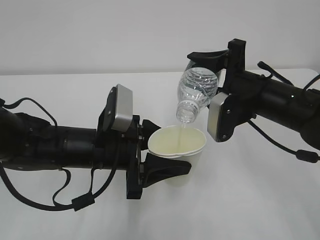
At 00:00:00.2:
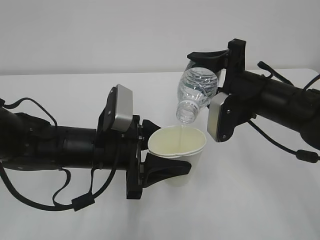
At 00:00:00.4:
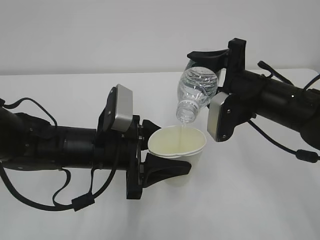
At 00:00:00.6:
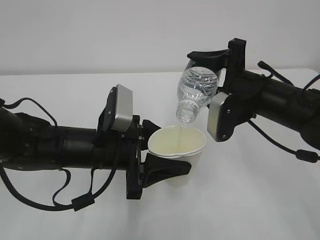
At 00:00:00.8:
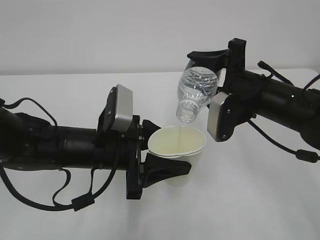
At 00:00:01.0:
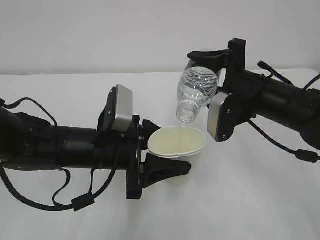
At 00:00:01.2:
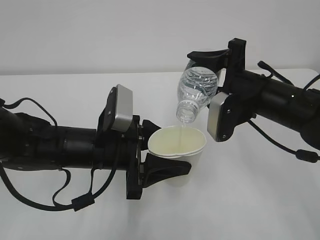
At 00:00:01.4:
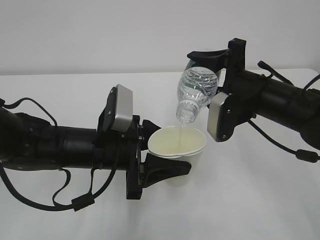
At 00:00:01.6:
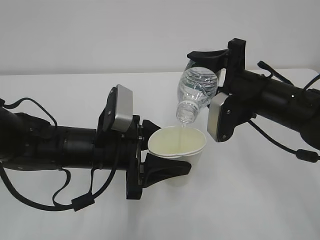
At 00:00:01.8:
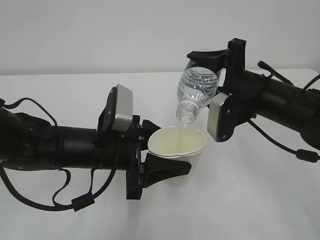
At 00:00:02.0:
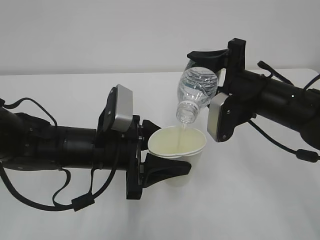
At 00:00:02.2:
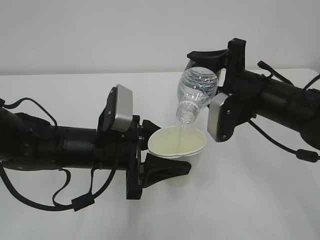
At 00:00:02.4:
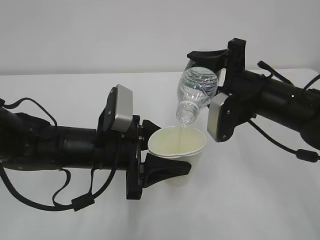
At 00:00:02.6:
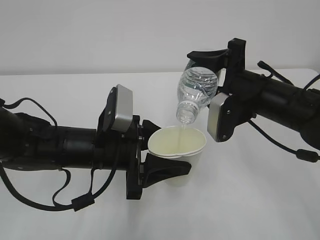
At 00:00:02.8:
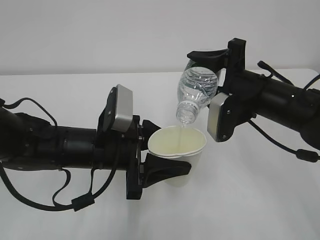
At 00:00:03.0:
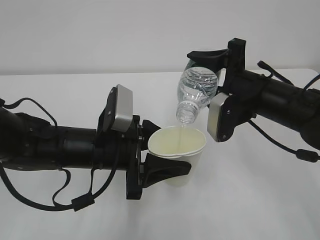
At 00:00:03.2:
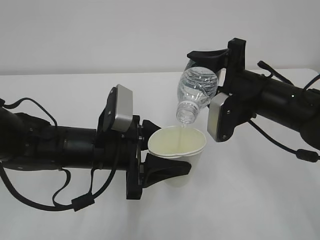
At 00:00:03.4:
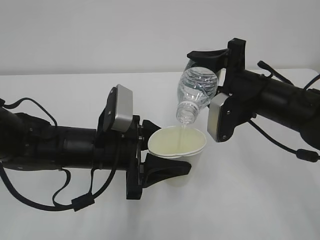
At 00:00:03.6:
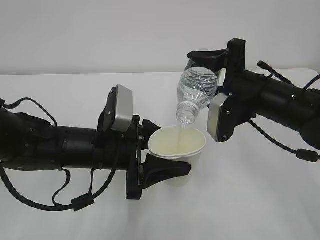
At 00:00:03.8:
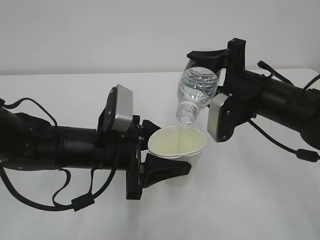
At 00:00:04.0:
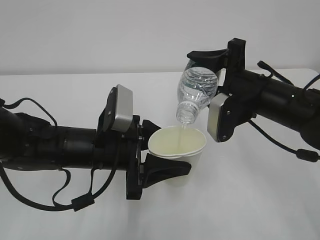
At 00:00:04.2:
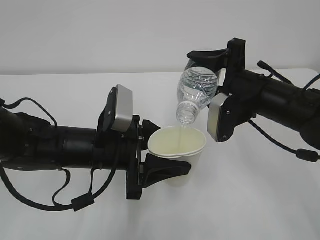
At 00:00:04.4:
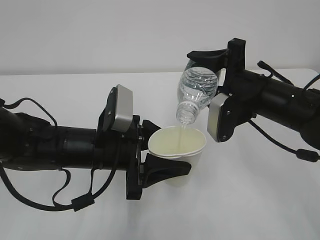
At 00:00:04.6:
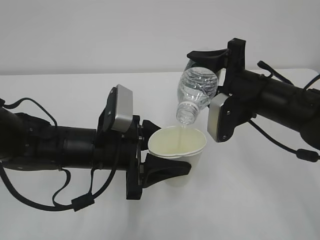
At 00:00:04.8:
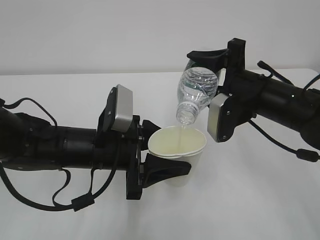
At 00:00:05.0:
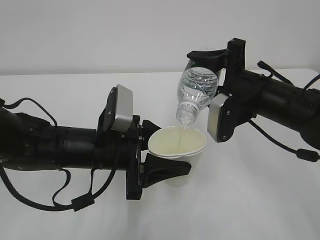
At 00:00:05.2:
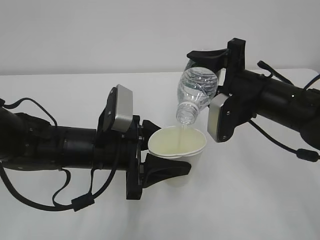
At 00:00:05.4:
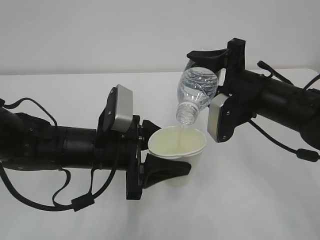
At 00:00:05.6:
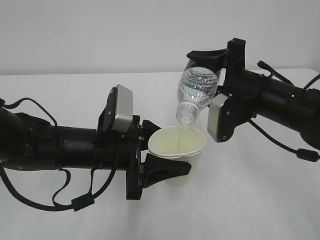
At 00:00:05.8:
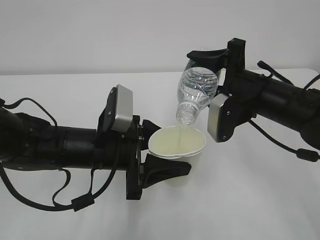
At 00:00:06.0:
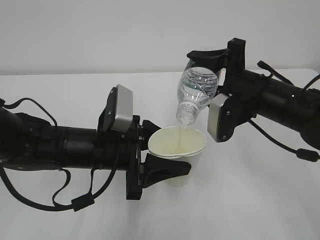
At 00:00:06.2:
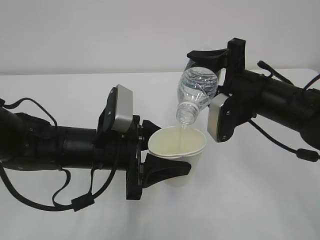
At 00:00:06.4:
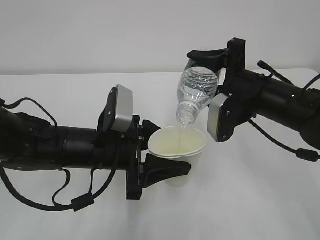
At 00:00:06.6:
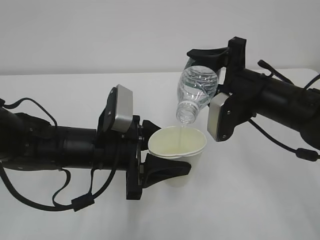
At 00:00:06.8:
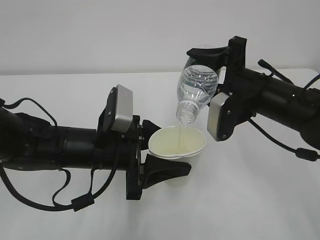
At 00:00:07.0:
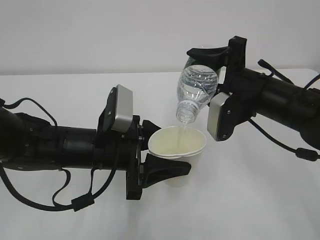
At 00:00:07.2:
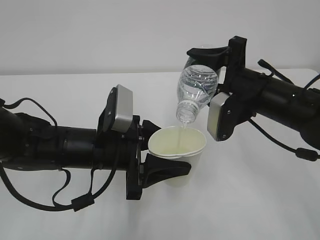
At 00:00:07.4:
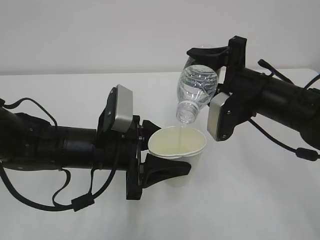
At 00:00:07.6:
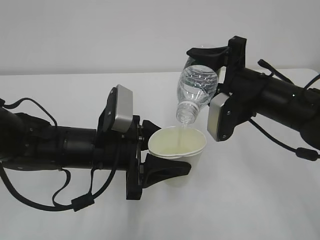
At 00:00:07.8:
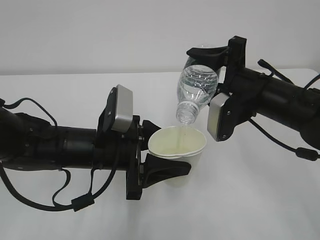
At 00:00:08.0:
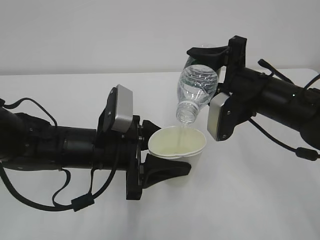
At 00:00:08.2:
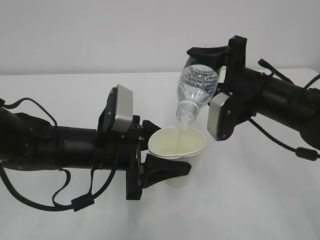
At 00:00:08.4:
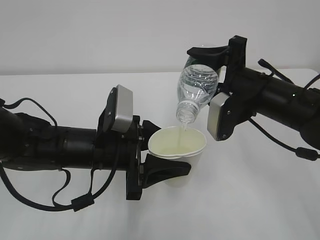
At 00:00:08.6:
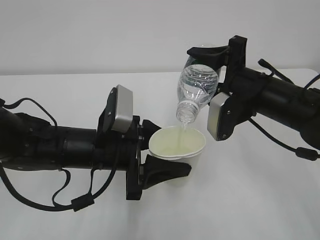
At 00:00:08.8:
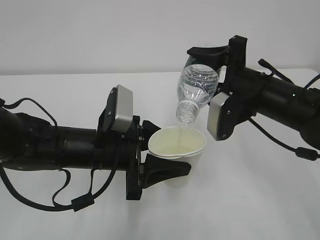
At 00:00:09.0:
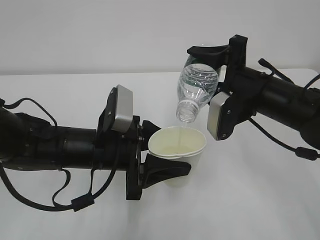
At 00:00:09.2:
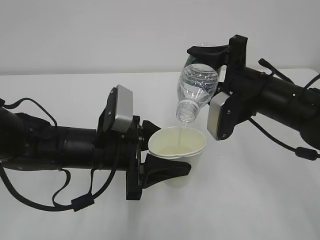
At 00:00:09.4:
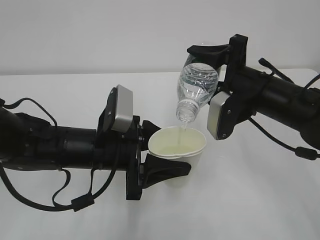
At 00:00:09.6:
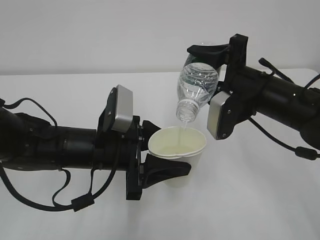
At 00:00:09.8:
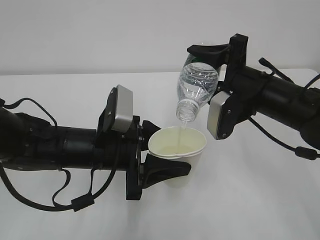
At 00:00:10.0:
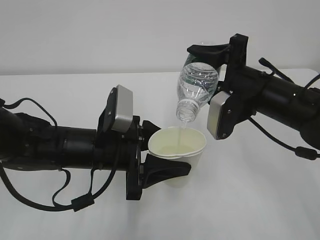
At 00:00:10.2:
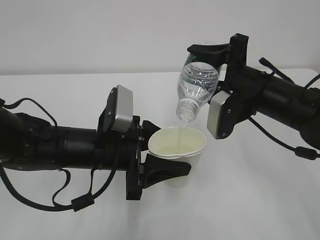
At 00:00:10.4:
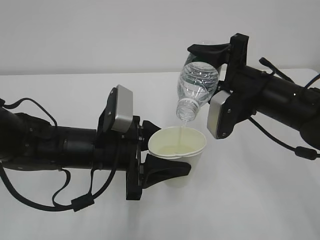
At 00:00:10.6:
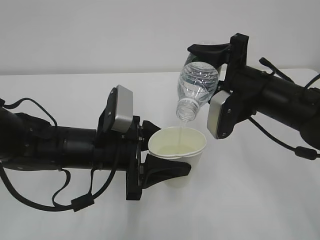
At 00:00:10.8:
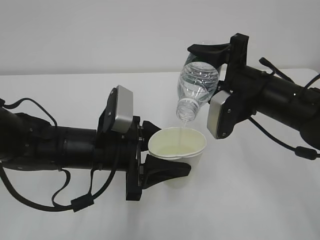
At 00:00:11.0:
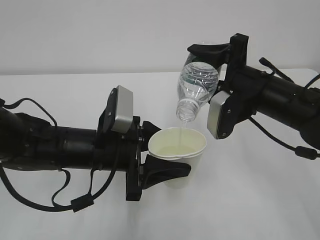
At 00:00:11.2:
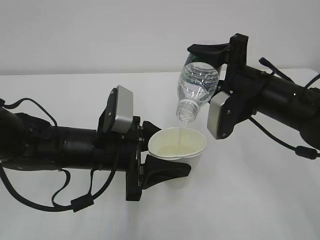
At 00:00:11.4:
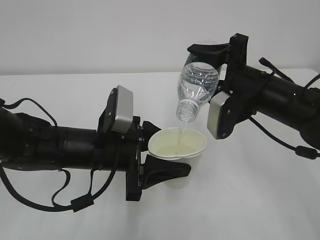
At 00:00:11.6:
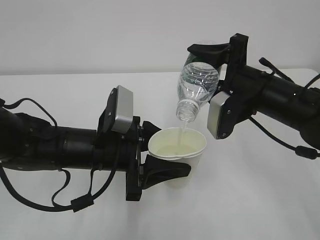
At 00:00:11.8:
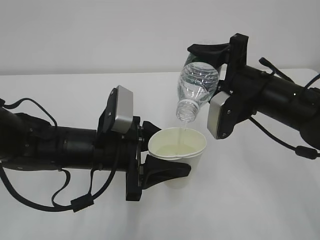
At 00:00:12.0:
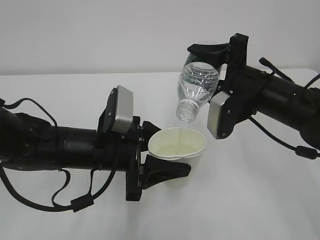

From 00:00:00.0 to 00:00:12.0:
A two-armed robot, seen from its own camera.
From 00:00:00.0 to 00:00:09.0: Both grippers stay put.
From 00:00:09.0 to 00:00:12.0: The two grippers keep their place.

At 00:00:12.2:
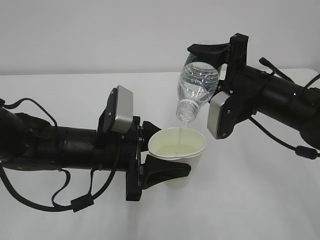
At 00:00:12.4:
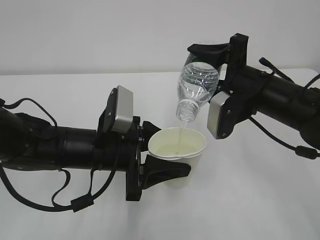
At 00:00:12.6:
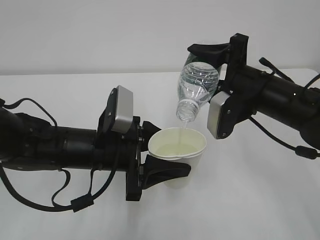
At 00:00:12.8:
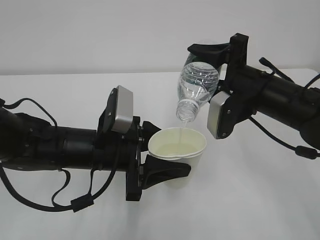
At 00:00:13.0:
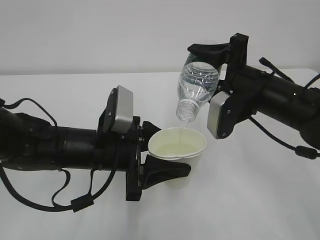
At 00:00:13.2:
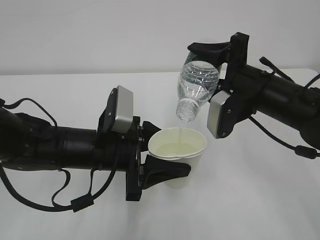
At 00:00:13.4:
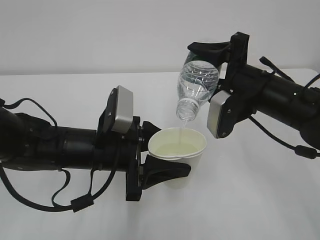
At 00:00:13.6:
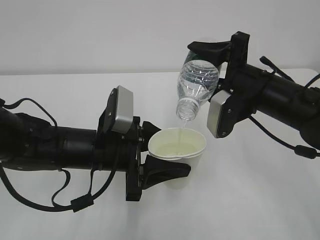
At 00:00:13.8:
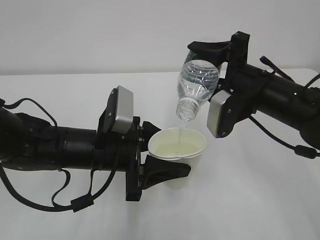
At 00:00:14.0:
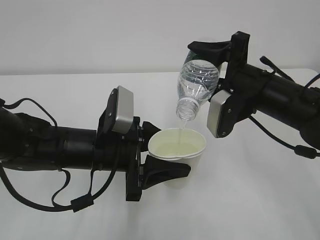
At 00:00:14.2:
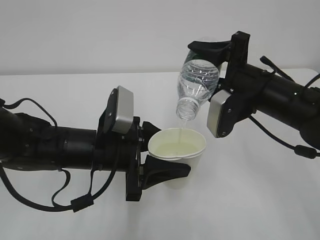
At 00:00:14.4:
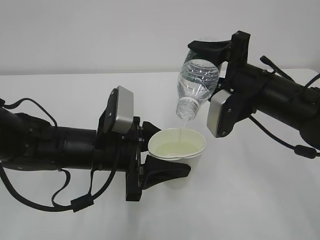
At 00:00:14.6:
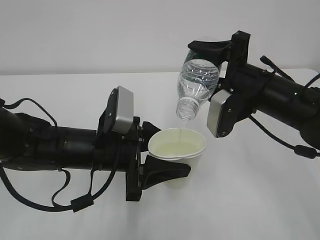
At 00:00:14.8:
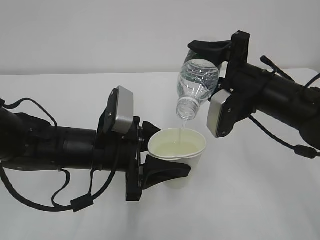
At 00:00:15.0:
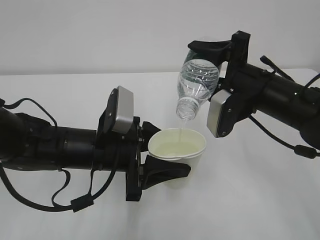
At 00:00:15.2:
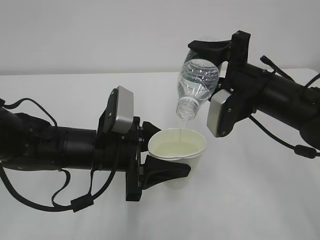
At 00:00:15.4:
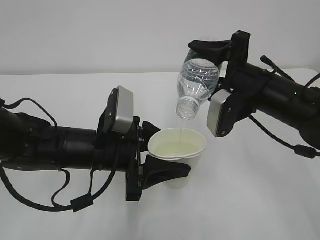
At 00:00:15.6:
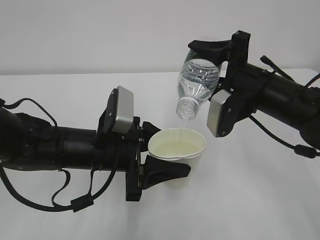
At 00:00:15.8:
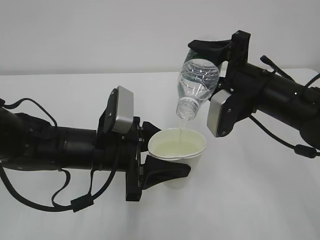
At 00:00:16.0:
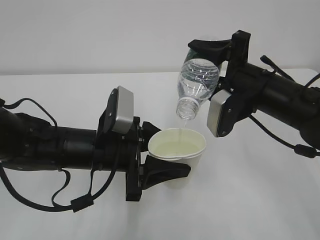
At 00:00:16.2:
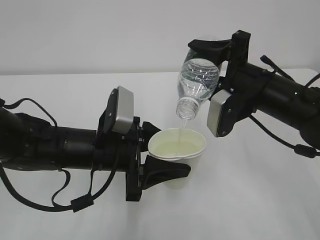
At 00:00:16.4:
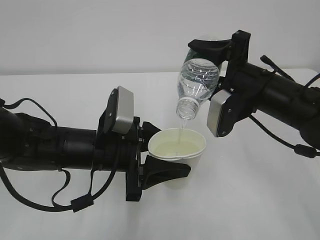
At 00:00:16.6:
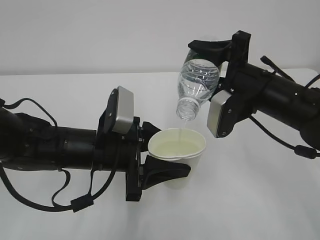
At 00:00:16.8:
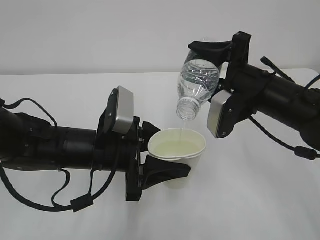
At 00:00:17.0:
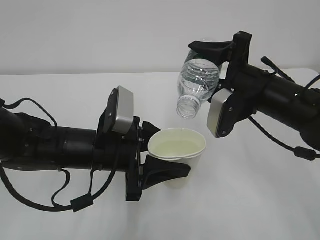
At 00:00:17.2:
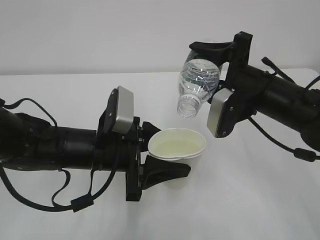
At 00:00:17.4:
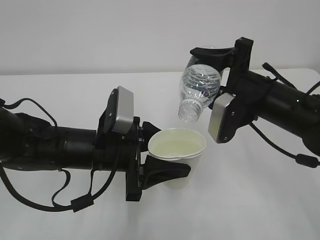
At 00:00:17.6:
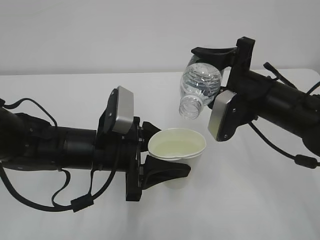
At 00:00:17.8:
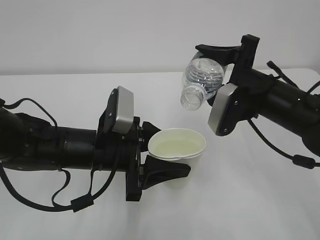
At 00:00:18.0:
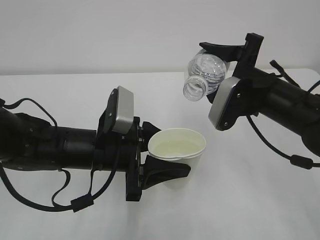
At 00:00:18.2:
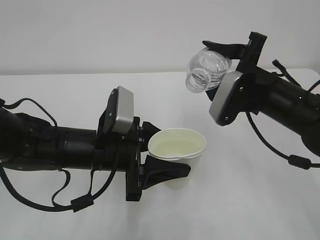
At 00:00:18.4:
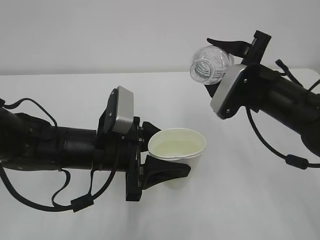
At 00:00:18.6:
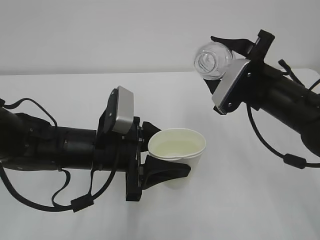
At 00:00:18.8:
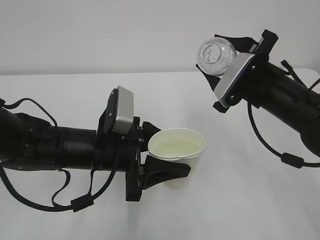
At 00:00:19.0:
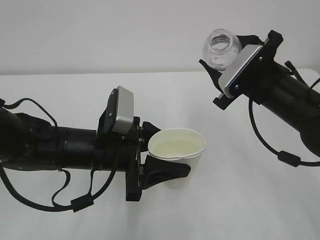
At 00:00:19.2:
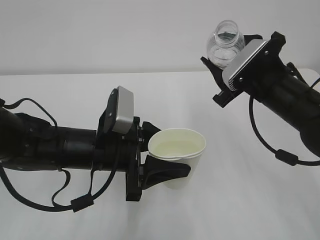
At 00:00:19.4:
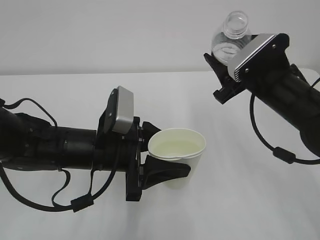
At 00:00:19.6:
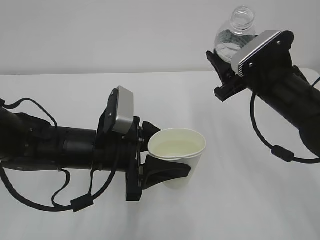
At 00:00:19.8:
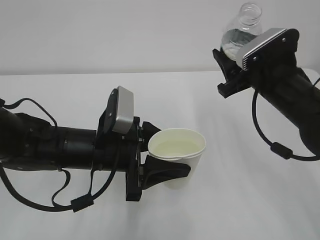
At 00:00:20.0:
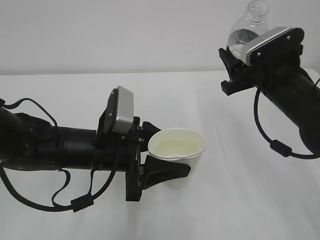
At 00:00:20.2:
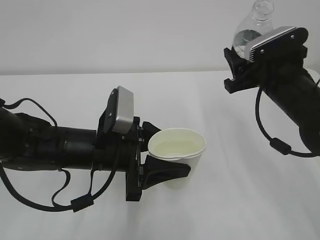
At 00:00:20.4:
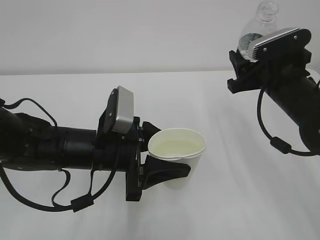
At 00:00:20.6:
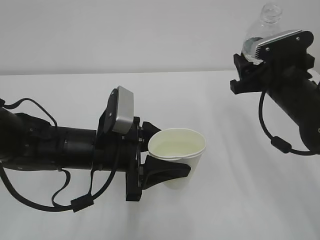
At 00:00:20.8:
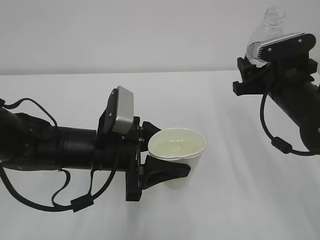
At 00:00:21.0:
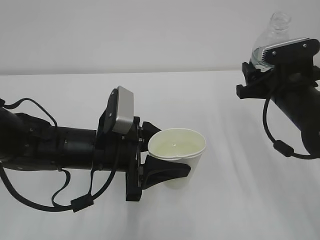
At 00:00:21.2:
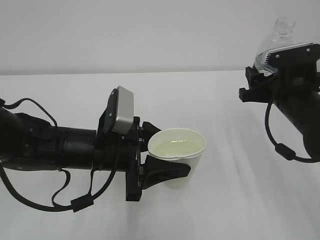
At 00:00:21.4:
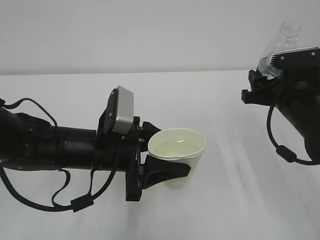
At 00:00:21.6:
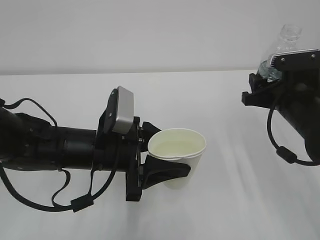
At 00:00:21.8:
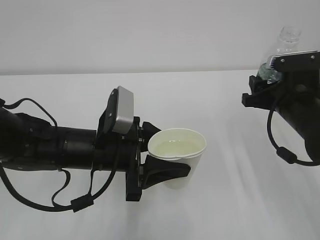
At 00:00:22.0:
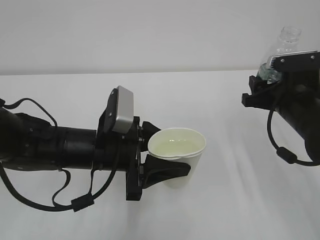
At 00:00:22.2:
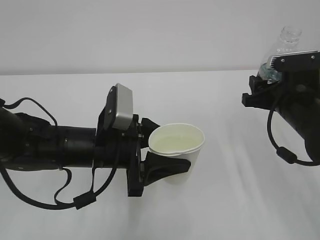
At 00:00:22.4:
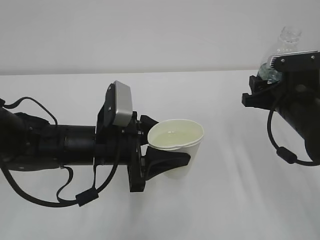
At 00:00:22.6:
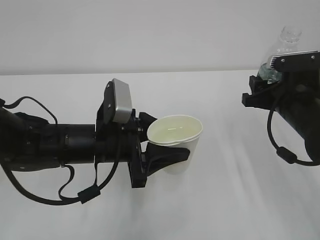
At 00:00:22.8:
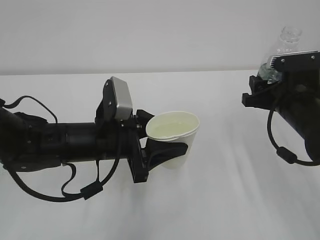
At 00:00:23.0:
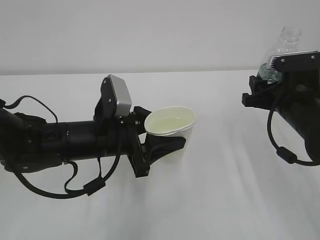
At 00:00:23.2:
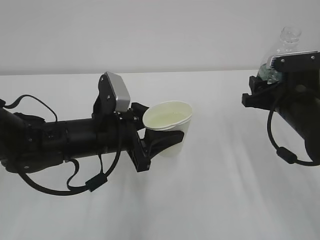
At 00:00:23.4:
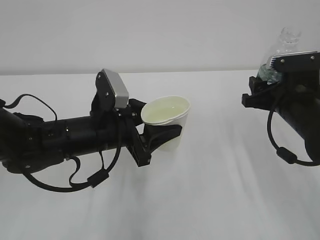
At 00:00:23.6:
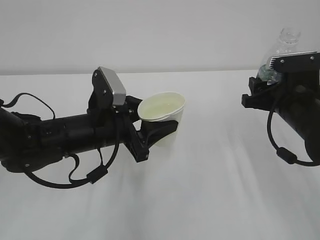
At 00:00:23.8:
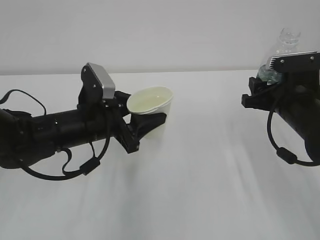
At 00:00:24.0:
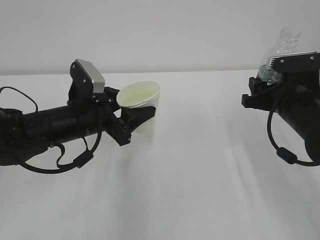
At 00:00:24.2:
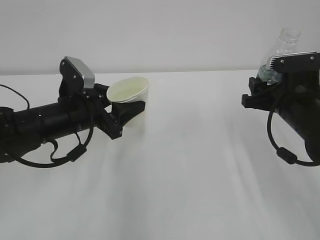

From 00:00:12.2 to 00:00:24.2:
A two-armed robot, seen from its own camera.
From 00:00:12.2 to 00:00:16.6: The two grippers keep their place.
From 00:00:21.2 to 00:00:22.6: The grippers move only a little.
From 00:00:22.6 to 00:00:24.2: The left gripper shifts approximately 10 cm to the left and forward.
